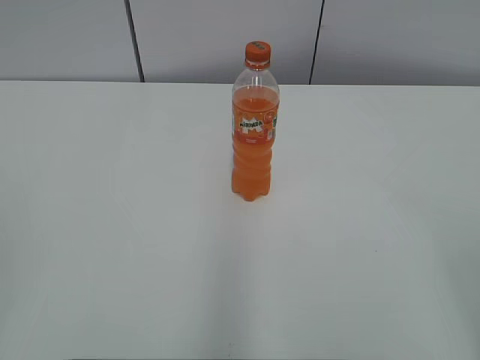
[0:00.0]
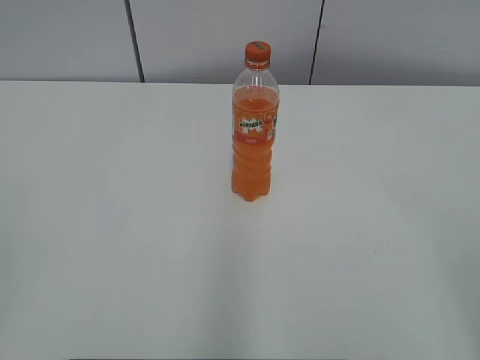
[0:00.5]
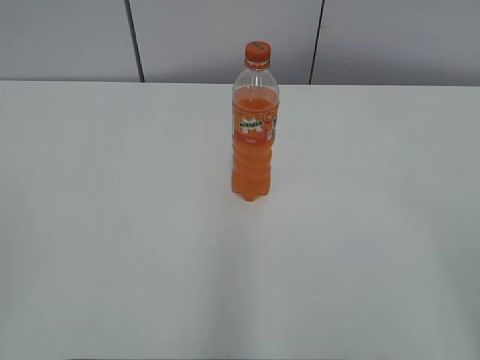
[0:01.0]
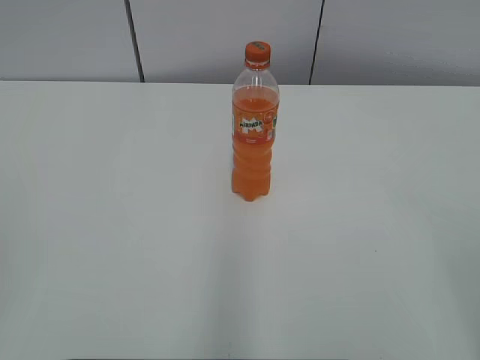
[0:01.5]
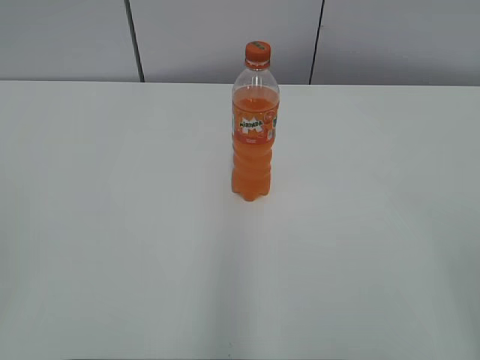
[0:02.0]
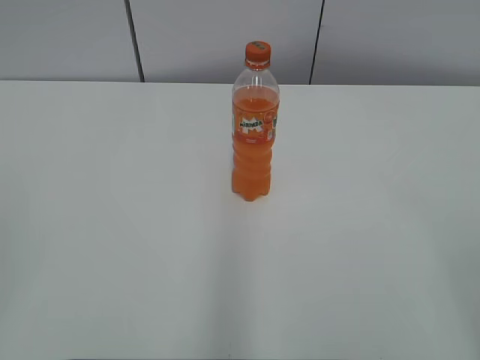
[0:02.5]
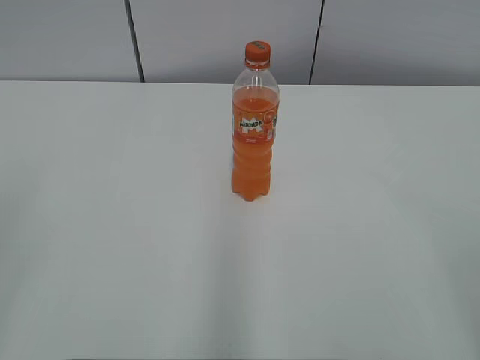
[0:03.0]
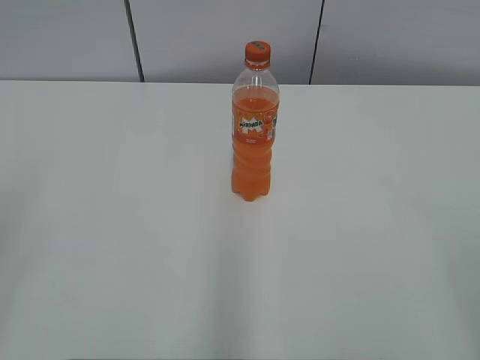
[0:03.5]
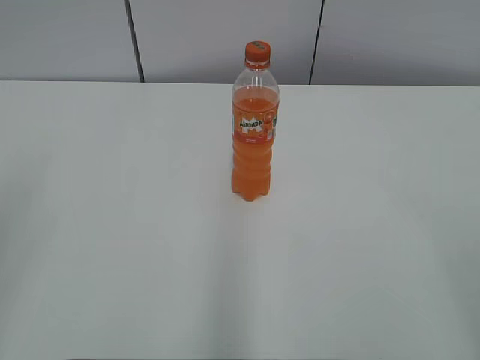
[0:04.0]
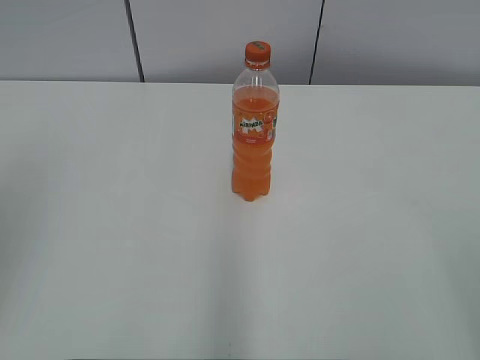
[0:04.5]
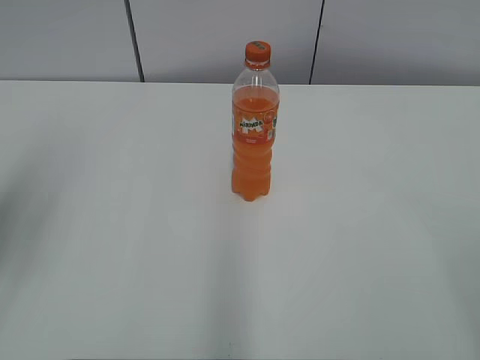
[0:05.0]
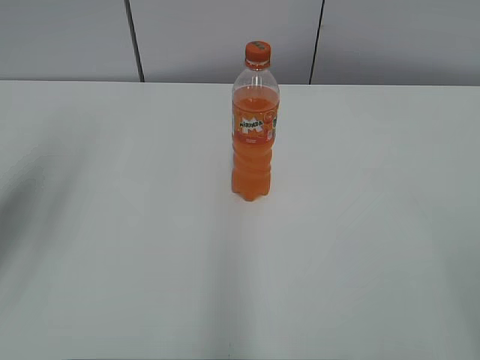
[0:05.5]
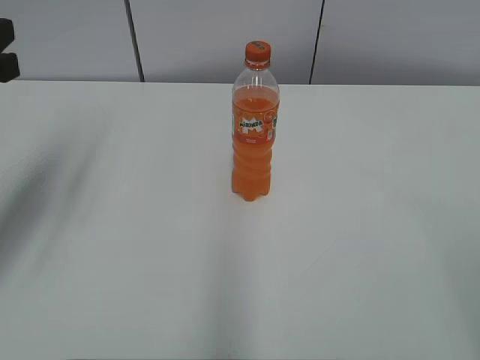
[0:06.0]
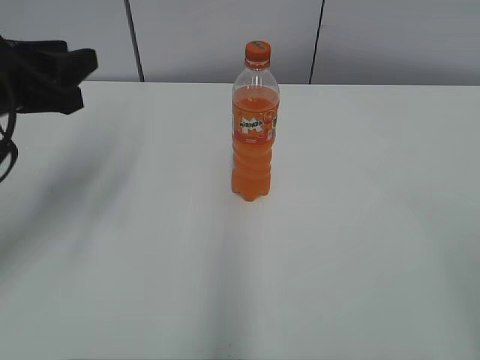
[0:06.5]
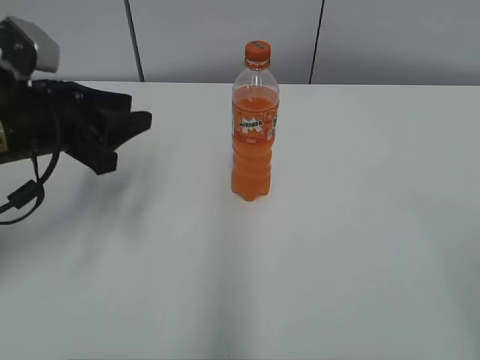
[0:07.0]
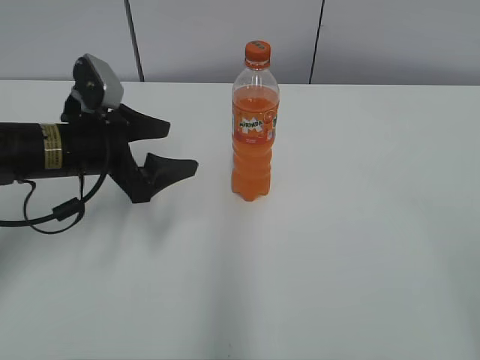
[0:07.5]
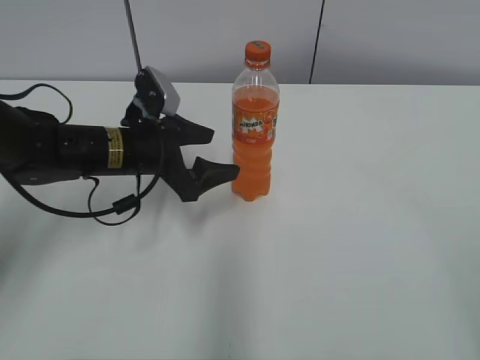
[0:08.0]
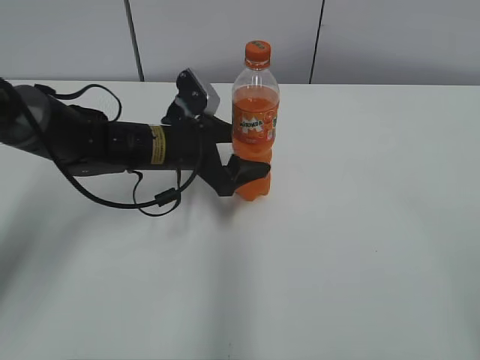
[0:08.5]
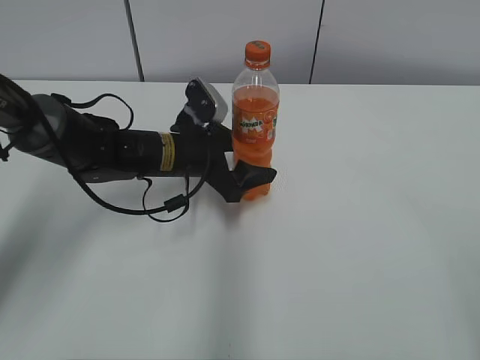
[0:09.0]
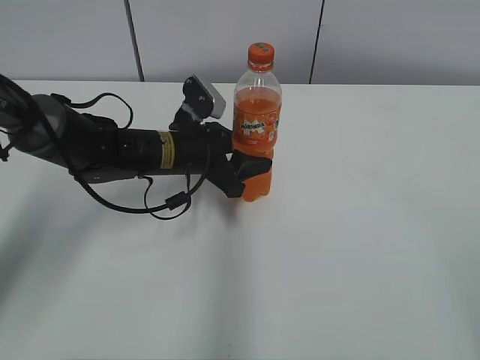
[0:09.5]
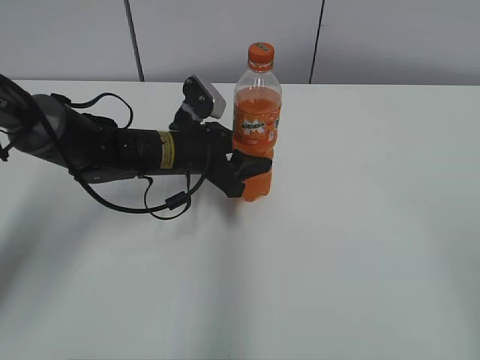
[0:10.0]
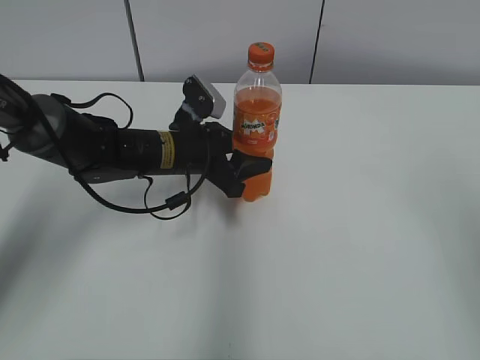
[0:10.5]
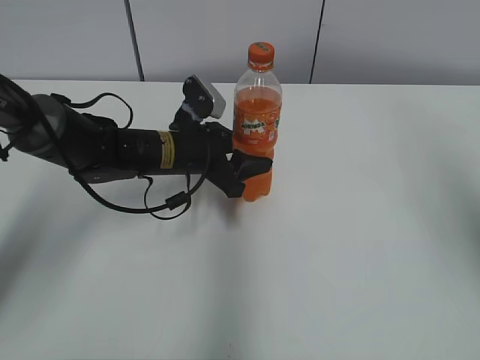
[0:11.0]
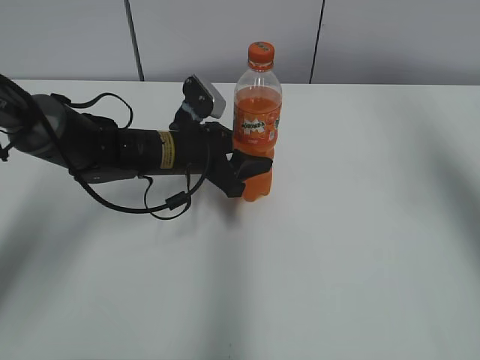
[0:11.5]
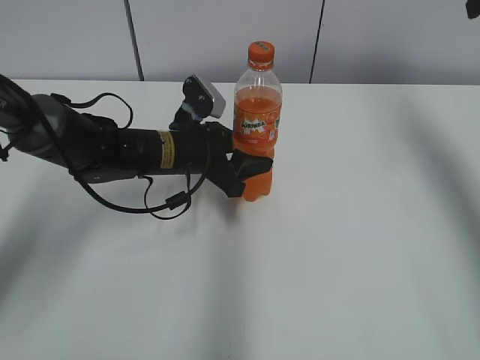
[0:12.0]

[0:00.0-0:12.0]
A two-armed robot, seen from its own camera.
Step, 0:00.0 to 0:09.5: Grab the Mirinda with the left hand.
0:04.0 to 0:06.0: The left gripper shifts about 20 cm forward.
0:06.0 to 0:08.0: The left gripper goes approximately 25 cm downward, to the right and forward, and opens its fingers.
0:08.0 to 0:10.0: The left gripper goes about 5 cm to the right, and closes.
0:10.0 to 0:12.0: The right gripper moves forward, approximately 35 cm.

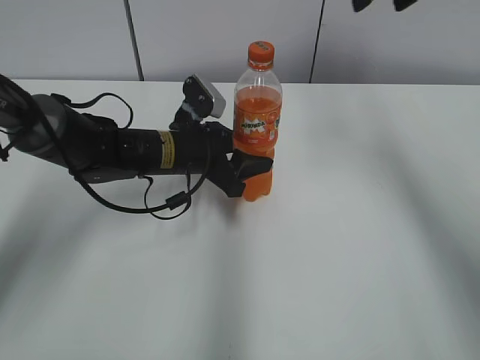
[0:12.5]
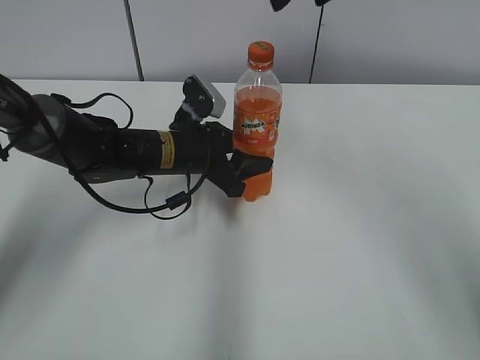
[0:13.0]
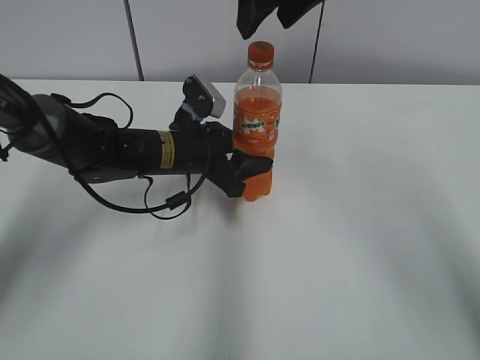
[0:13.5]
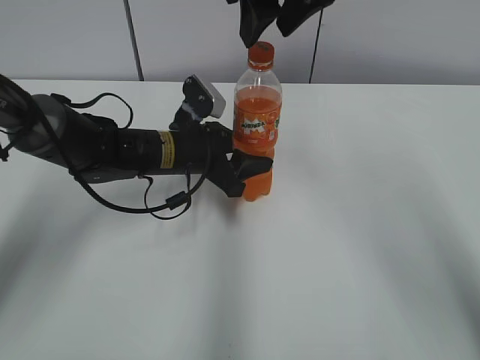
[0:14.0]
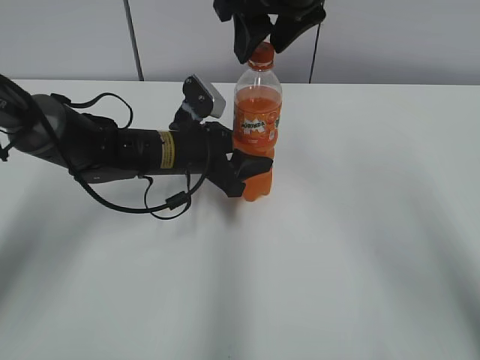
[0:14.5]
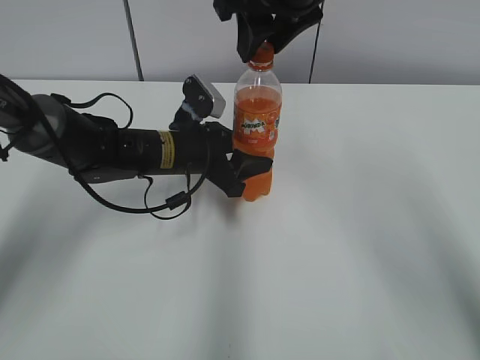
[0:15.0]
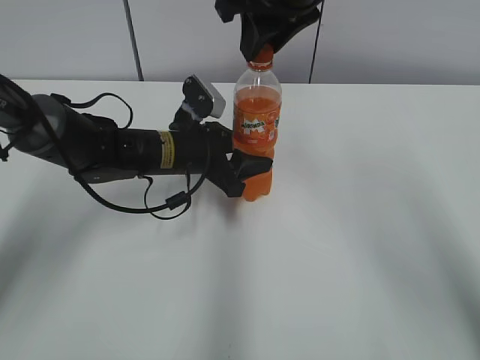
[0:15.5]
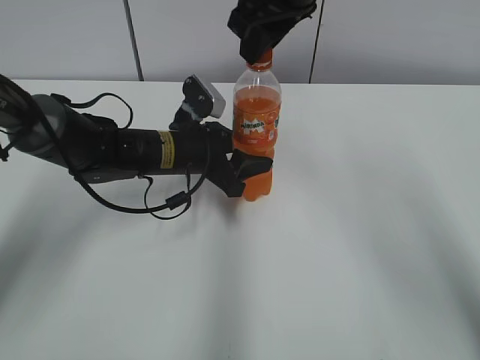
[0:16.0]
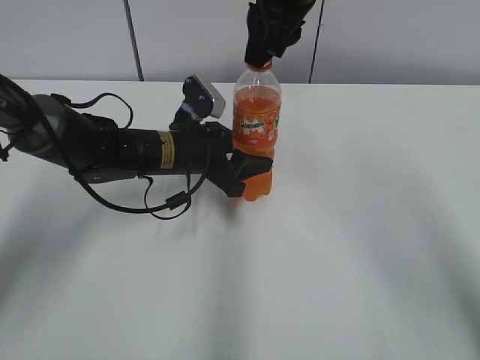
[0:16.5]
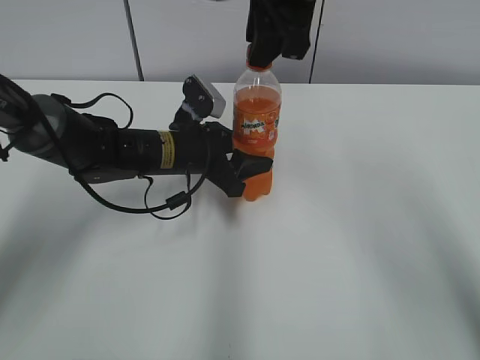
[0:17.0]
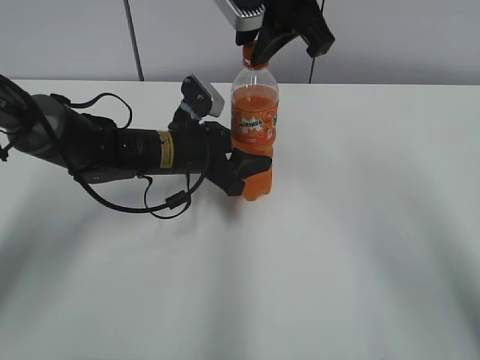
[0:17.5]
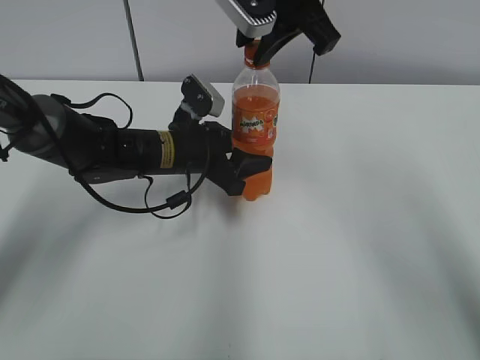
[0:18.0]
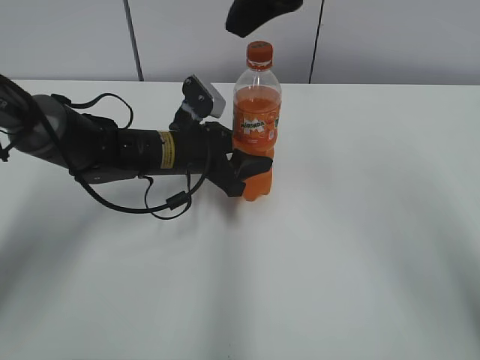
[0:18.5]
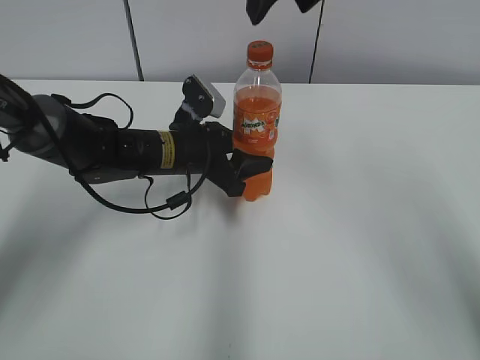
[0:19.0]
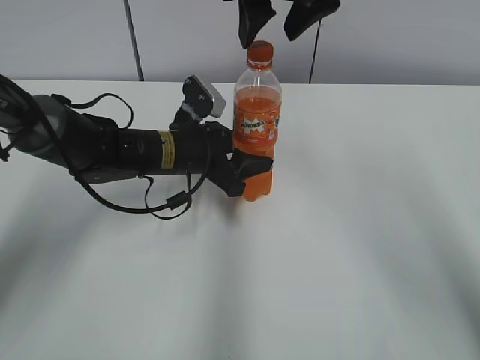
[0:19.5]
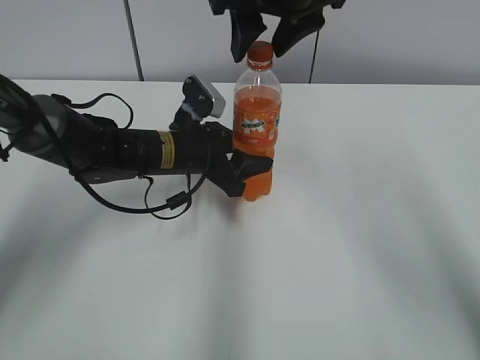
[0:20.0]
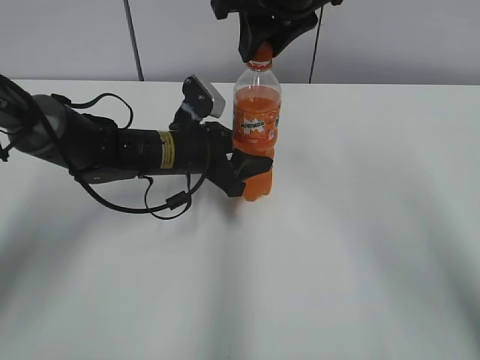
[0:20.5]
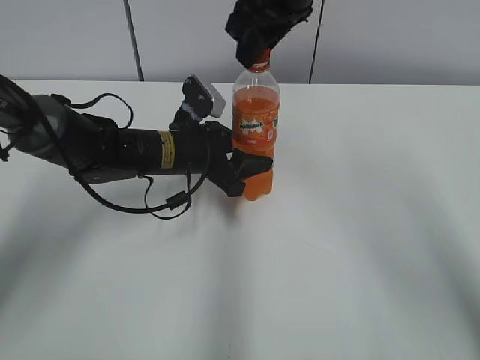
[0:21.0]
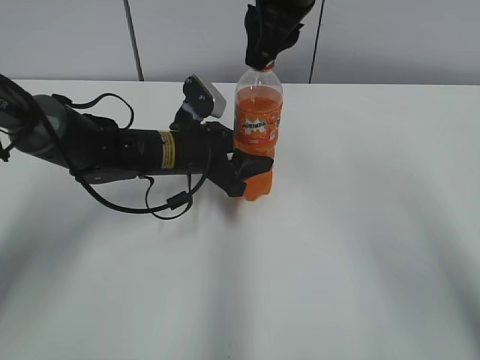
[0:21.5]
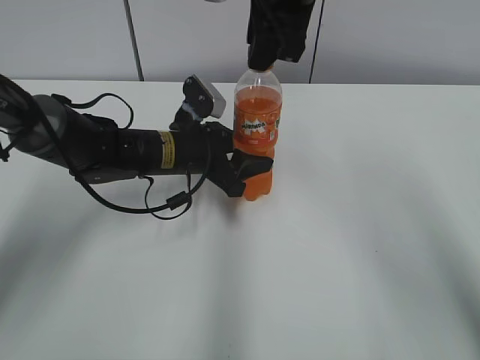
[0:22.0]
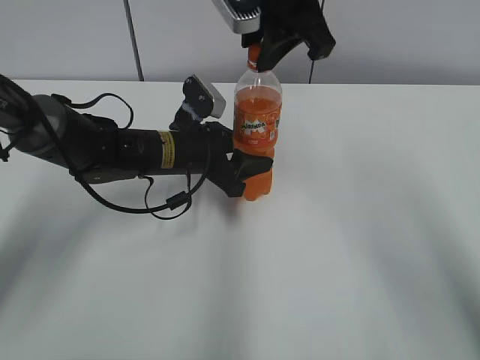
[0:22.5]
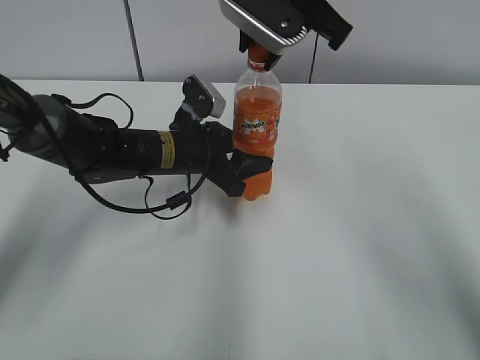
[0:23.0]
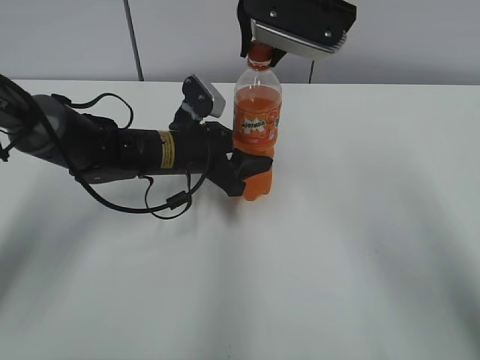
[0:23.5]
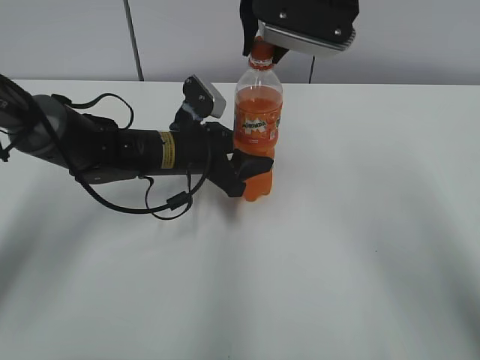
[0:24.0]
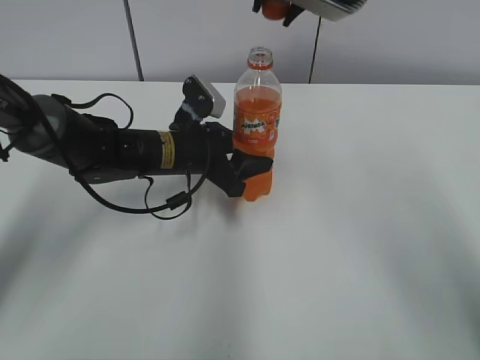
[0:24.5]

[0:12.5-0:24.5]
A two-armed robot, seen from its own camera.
0:12.5 to 0:14.5: The right gripper shifts about 15 cm to the left.
0:14.5 to 0:16.5: The right gripper closes up.
0:16.5 to 0:18.5: The right gripper is displaced upward by some 5 cm, and opens its fingers.
0:18.5 to 0:20.5: The right gripper shifts about 5 cm downward, and closes its fingers.

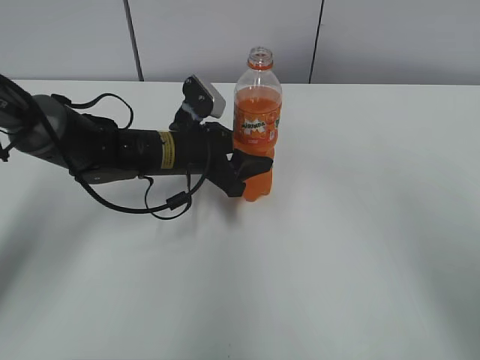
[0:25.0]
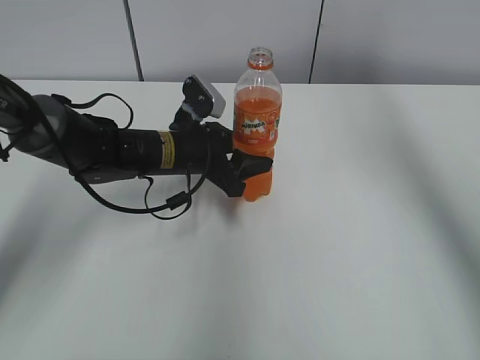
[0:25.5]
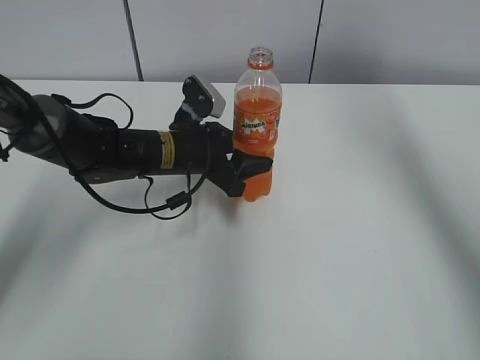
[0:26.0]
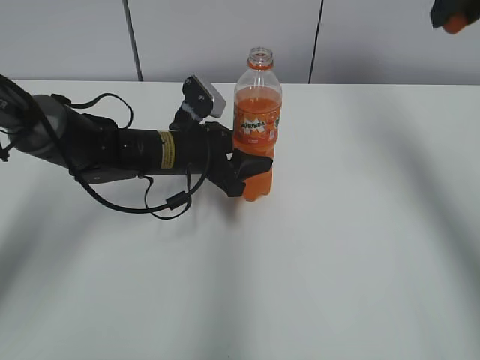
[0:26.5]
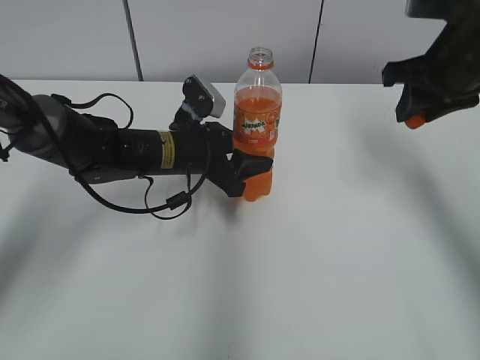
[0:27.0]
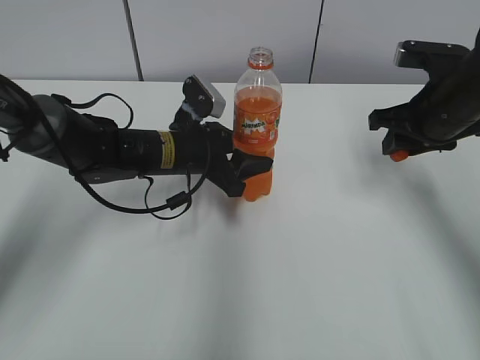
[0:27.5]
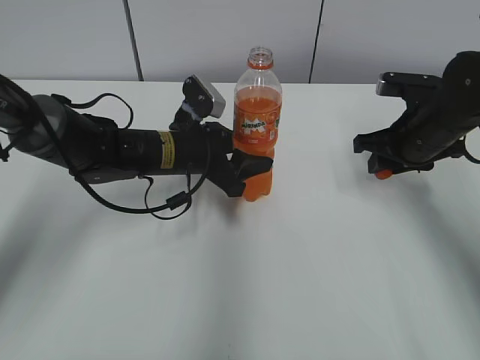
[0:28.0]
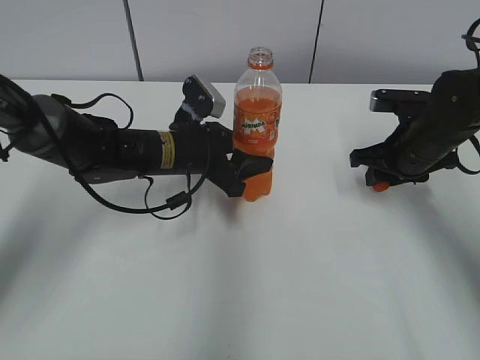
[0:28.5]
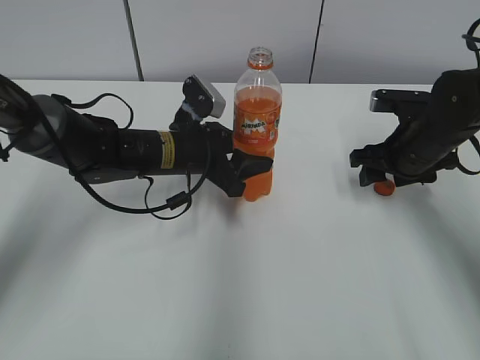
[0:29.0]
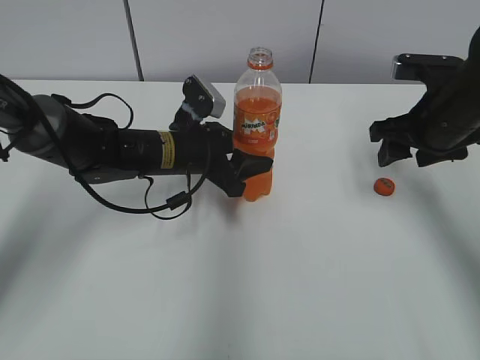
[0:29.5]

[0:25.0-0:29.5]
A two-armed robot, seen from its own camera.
Step, 0:25.0 to 0:29.0: Place the bottle cap on the right.
0:25.0 to 0:27.0: The right gripper travels downward and to the right by approximately 20 cm.
0:27.0 to 0:29.5: The right gripper travels downward by roughly 10 cm, and opens up.
